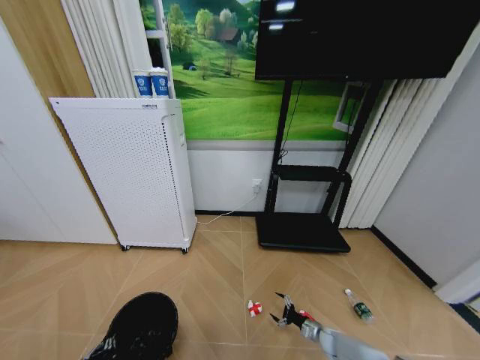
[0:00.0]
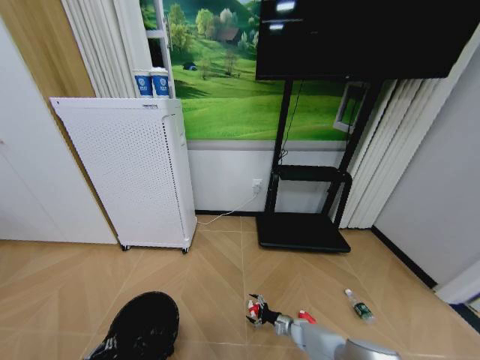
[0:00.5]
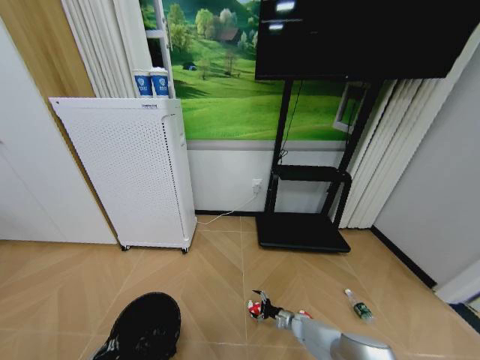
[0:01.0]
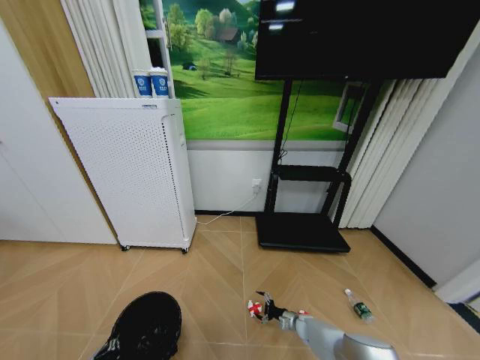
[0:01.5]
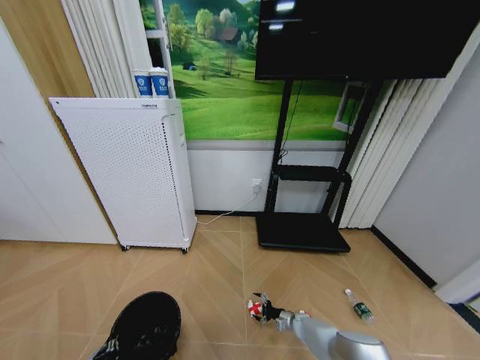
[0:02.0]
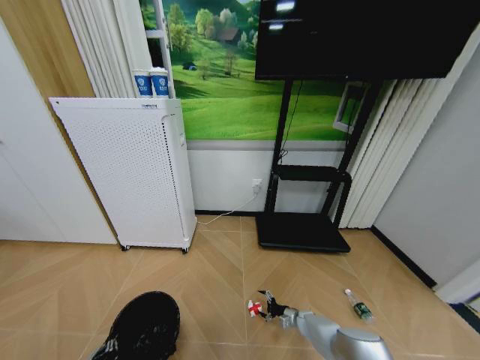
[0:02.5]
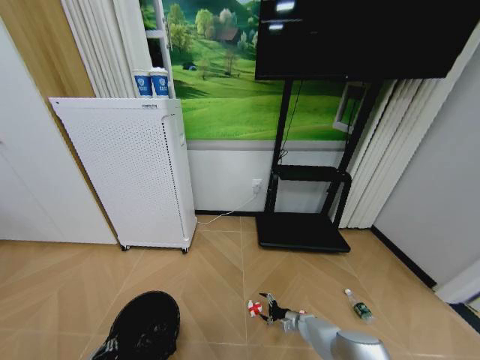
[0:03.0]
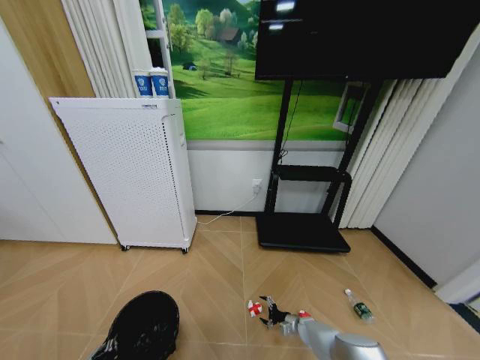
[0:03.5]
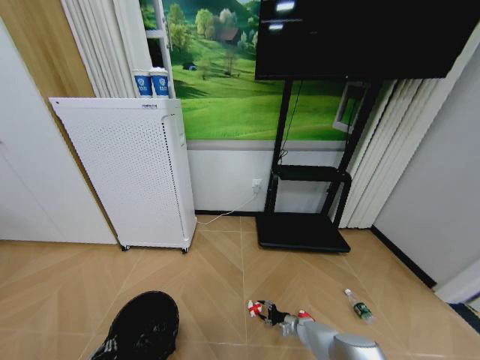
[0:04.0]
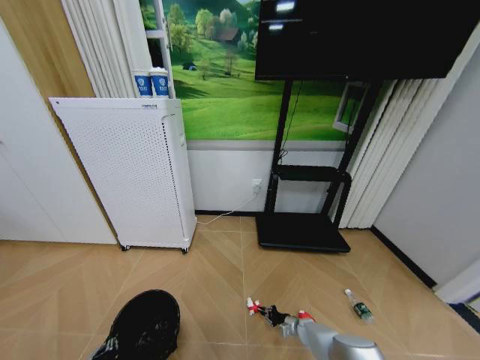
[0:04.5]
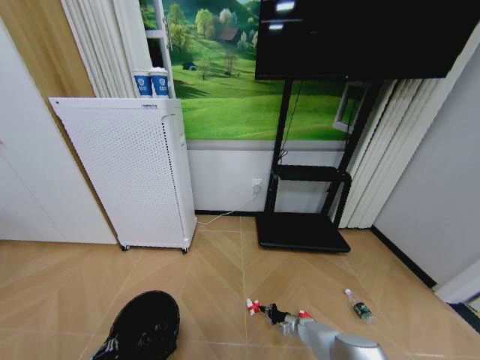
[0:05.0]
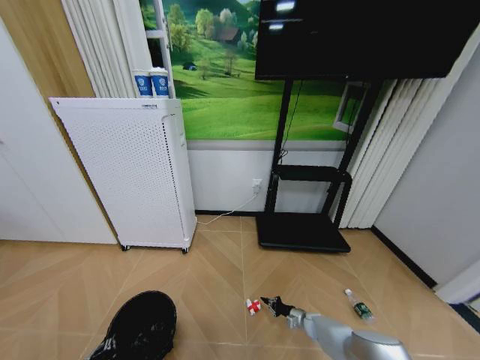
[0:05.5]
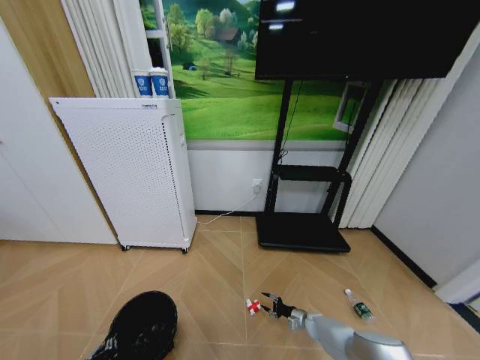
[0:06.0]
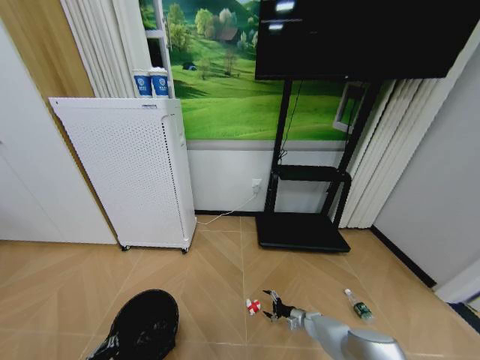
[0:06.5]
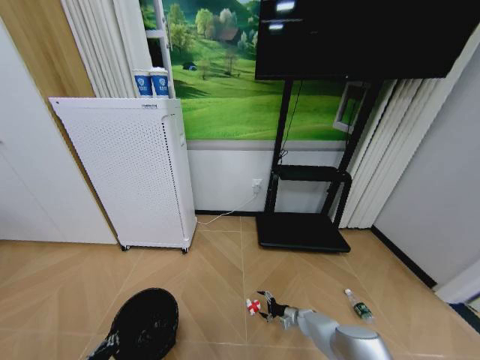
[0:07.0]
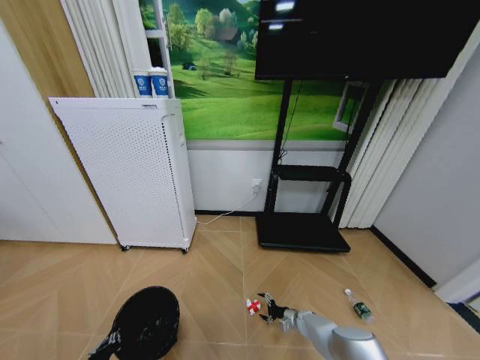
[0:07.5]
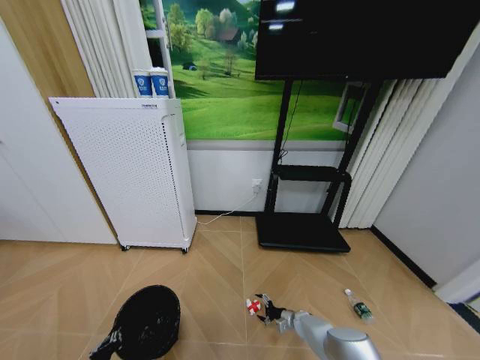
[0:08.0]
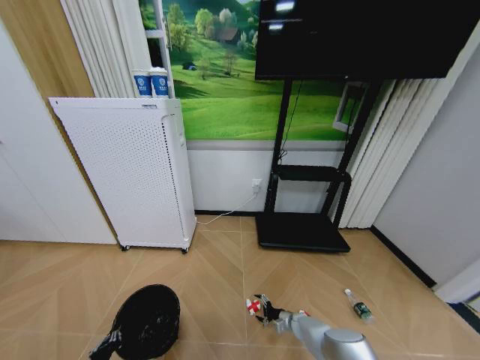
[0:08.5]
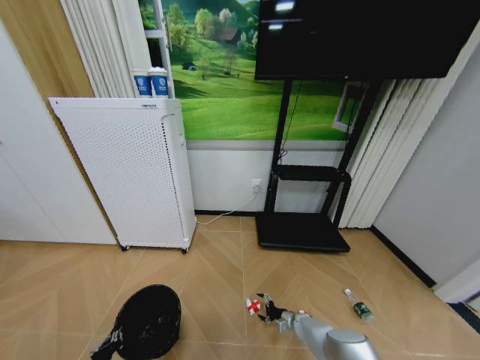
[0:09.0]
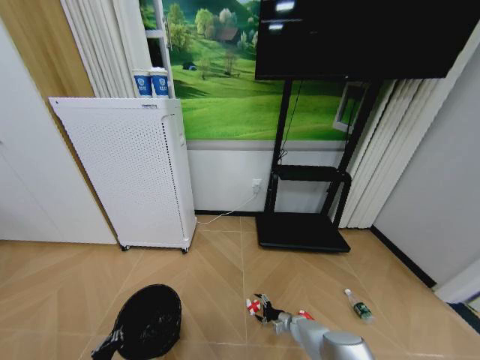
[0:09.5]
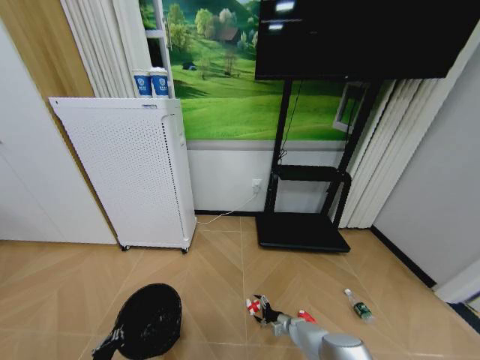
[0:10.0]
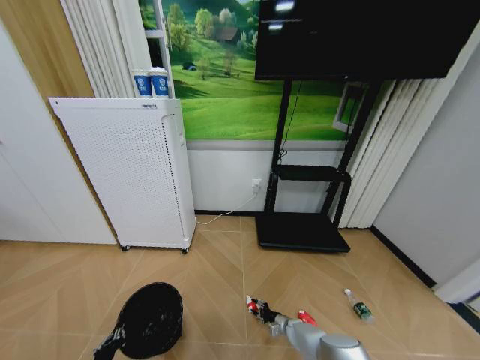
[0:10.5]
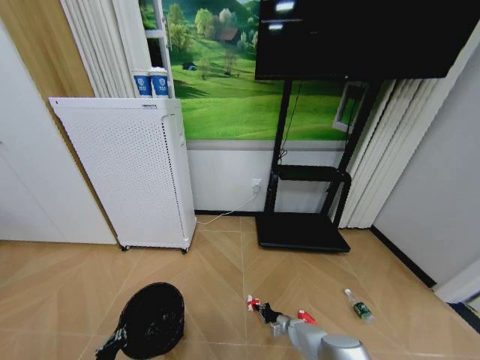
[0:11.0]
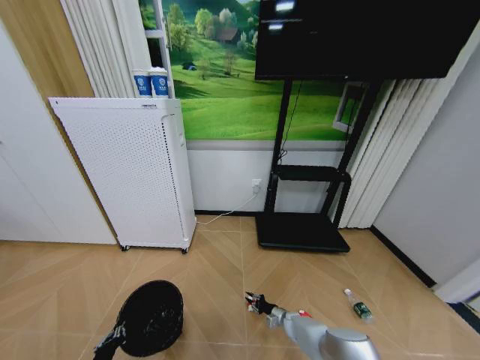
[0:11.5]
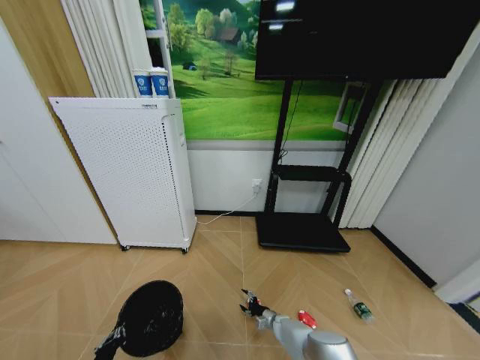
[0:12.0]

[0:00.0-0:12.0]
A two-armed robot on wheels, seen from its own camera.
Task of the whole recording: Pick up the trash bin and place the garbage on the floor into it.
0:00.0 to 0:02.0: The right gripper heads to the left and forward, covering roughly 10 cm.
0:02.0 to 0:04.0: The grippers make only small movements.
0:04.0 to 0:06.0: The right gripper closes and opens again.
0:06.0 to 0:08.0: The right gripper opens.
0:08.0 to 0:10.0: There are only small adjustments of the grippers.
0:10.0 to 0:12.0: The right gripper is displaced to the left by roughly 5 cm, and closes, then reopens.

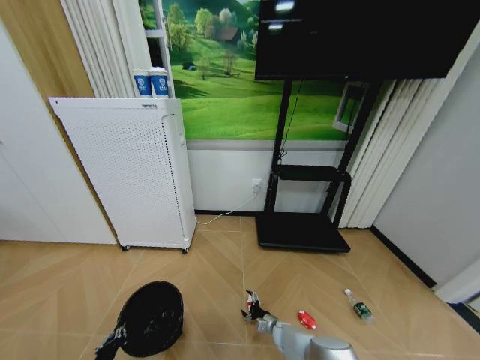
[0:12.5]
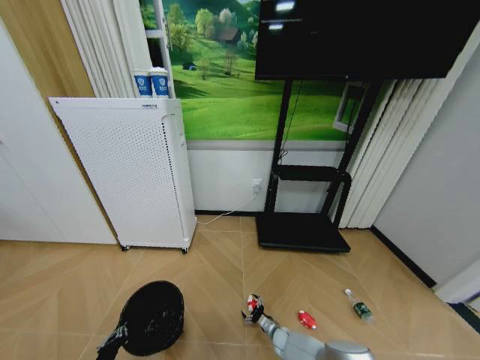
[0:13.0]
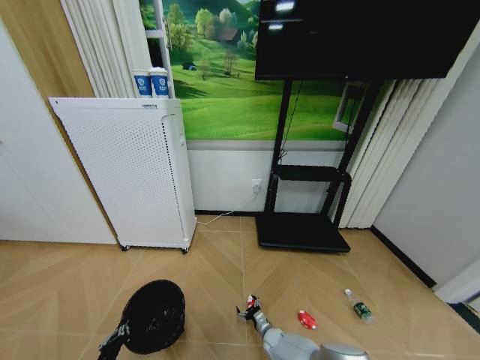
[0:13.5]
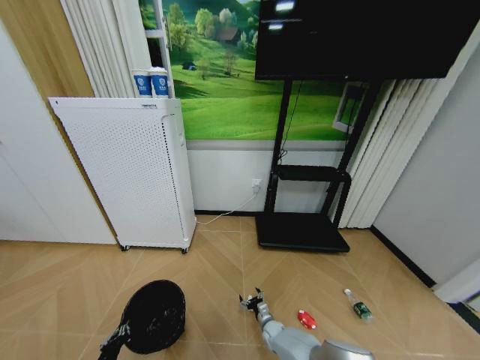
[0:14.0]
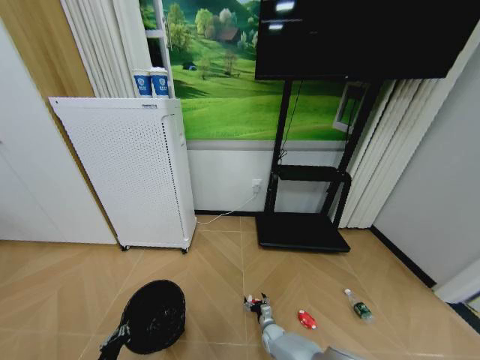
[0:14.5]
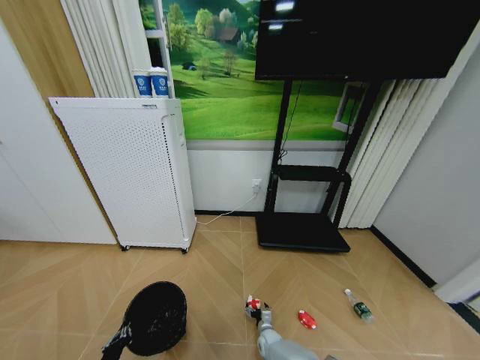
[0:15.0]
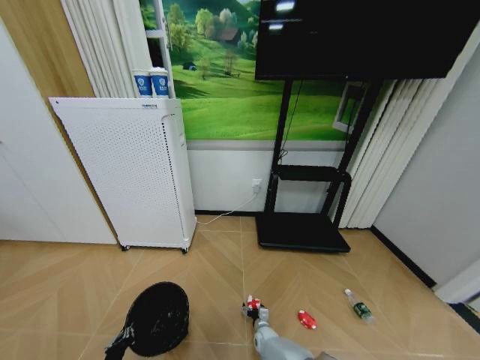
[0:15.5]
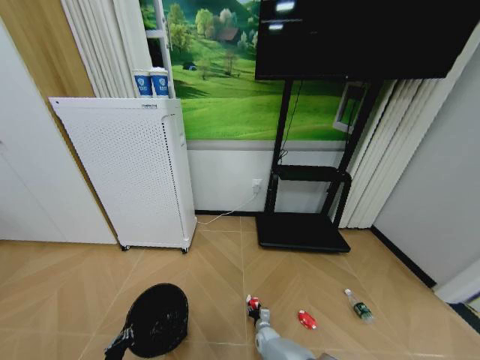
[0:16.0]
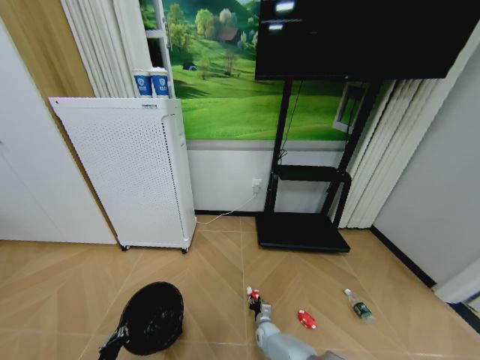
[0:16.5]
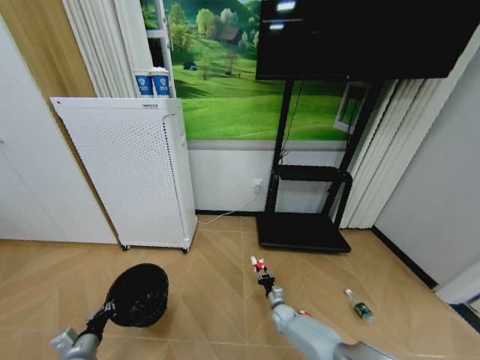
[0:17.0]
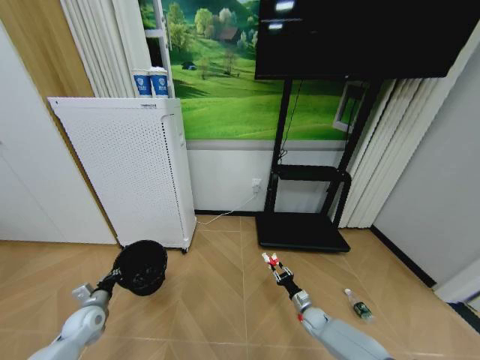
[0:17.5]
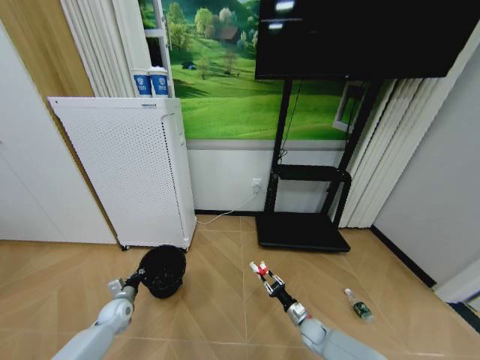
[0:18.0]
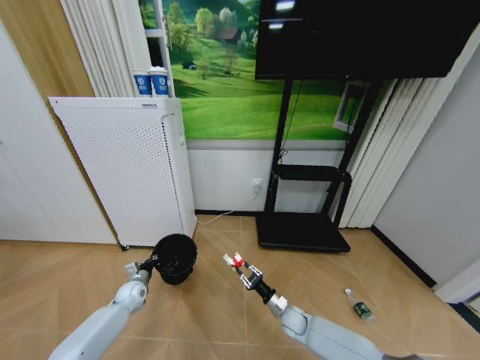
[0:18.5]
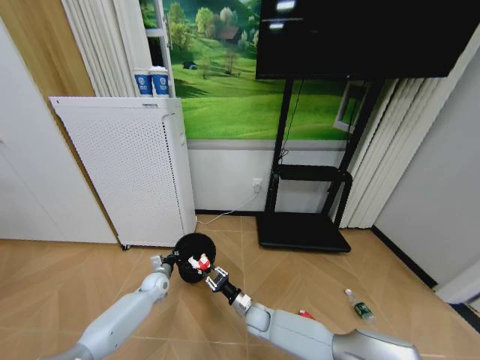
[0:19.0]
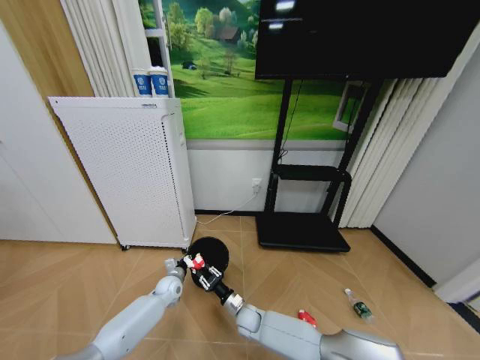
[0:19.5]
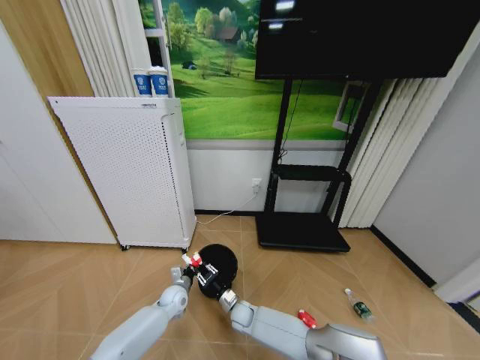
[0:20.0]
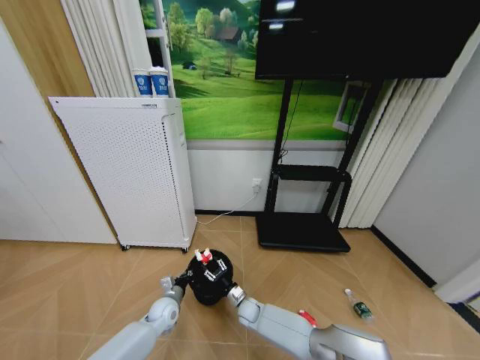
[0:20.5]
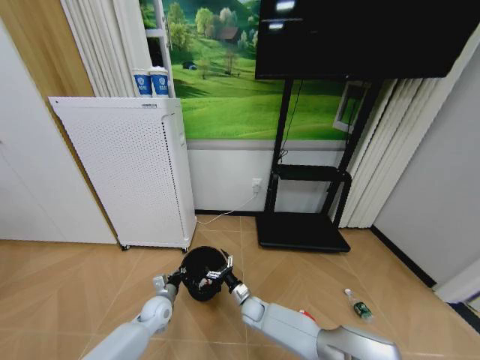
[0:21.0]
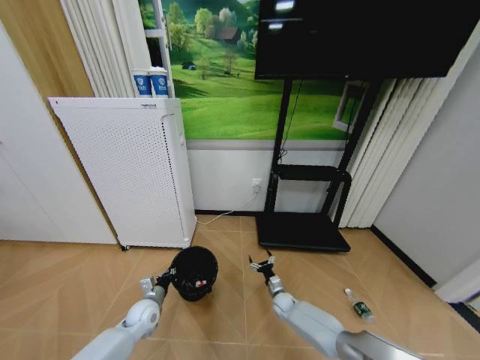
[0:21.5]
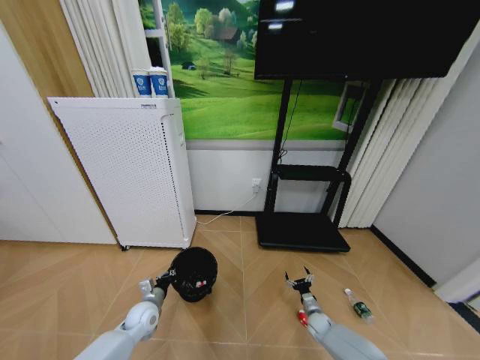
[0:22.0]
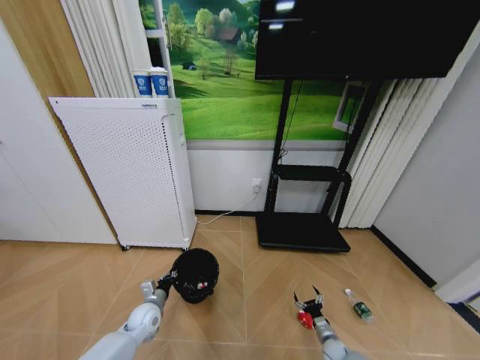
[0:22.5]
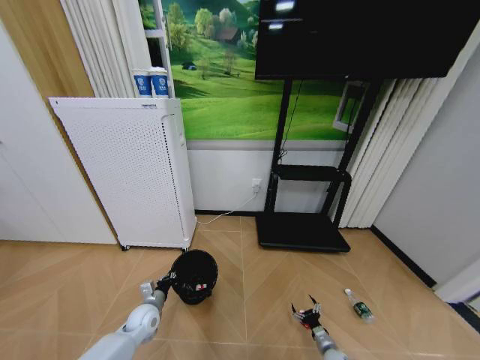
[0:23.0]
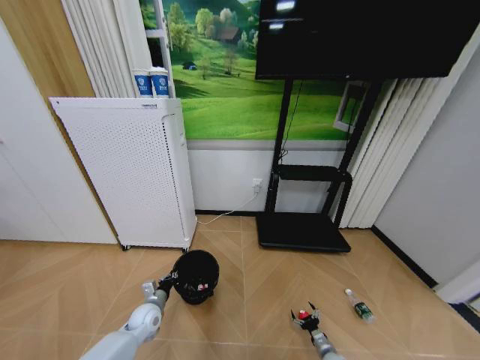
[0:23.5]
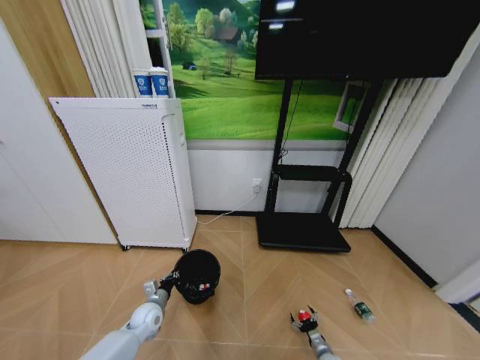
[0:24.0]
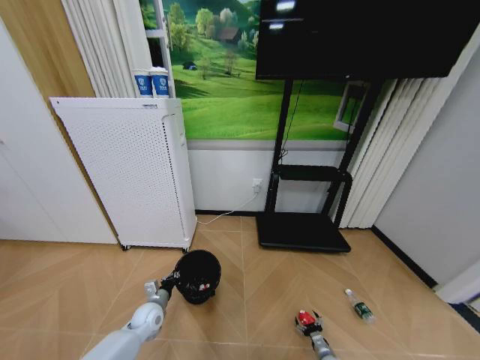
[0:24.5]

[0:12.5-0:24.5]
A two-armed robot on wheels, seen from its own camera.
Task of the whole recording: Pick up the trash bin and place the garbage on the floor into it.
0:16.5 to 0:18.5: The right gripper heads upward and to the right, covering about 15 cm, while the left gripper heads forward, covering about 30 cm.
0:18.5 to 0:20.5: The left gripper goes approximately 15 cm to the right, while the right gripper moves to the left, about 15 cm.
0:20.5 to 0:22.5: The right gripper goes some 30 cm to the right, and opens its fingers. The left gripper moves to the left, some 5 cm.
0:22.5 to 0:24.5: The right gripper moves downward, approximately 5 cm.

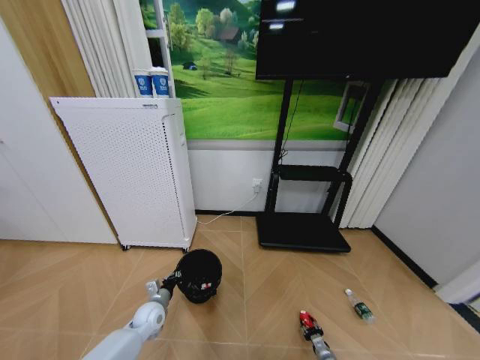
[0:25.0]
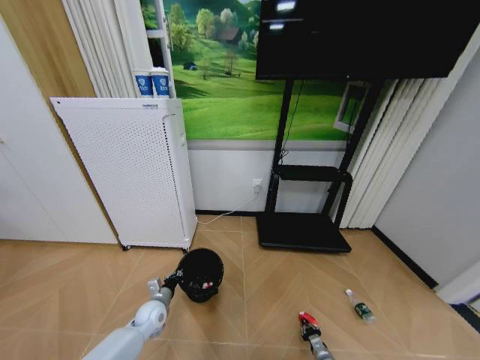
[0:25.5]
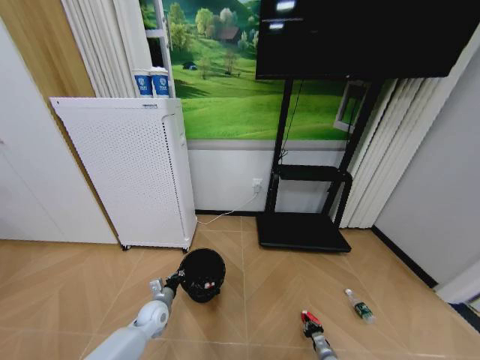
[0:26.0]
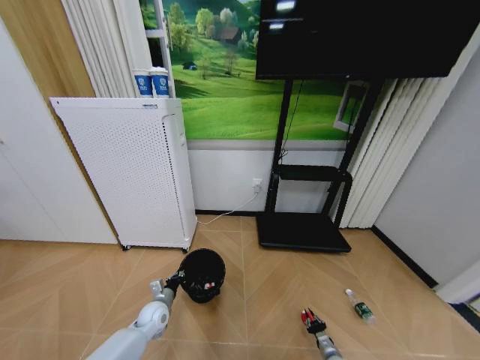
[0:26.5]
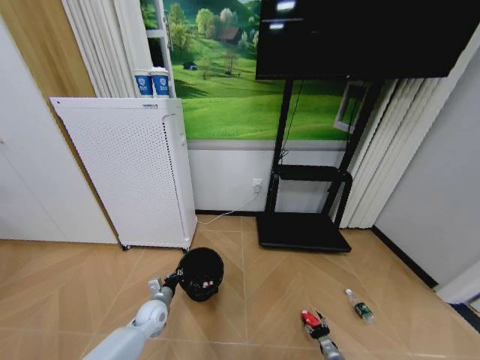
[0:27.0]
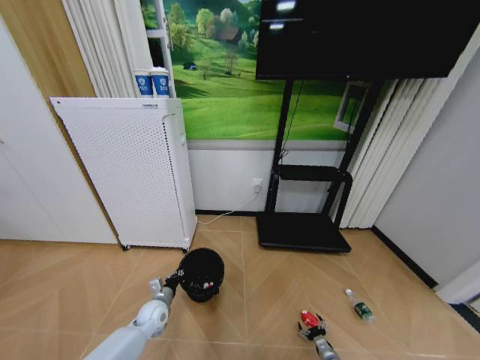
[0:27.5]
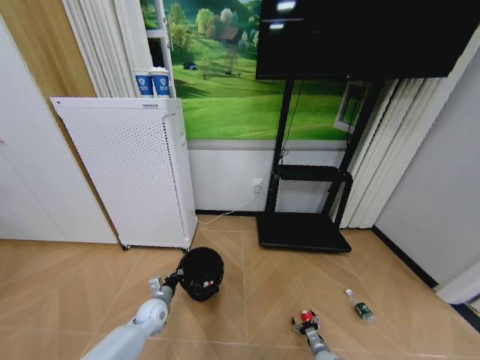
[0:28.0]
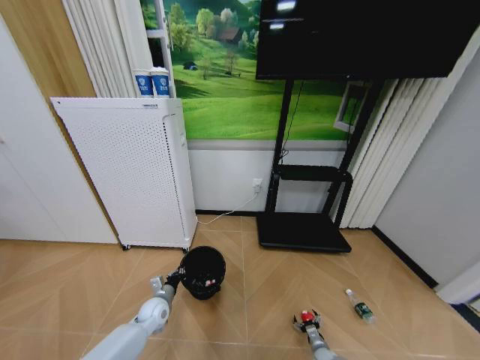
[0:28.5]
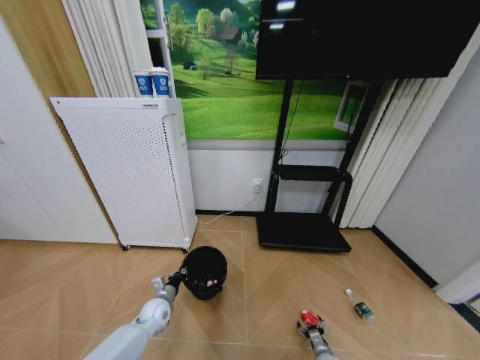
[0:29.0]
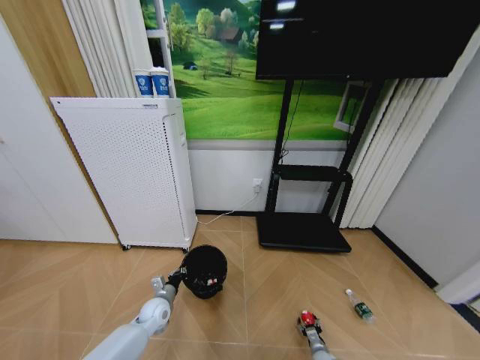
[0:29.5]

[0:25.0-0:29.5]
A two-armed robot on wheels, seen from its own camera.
Task of the whole recording: Pick up the trash bin and place the garbage on the floor into it.
0:25.0 to 0:27.0: The right gripper closes, then reopens.
0:27.0 to 0:29.5: The right gripper moves roughly 5 cm.
